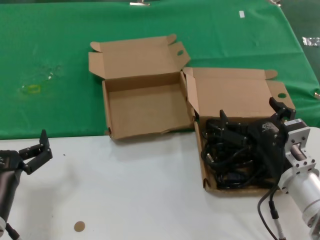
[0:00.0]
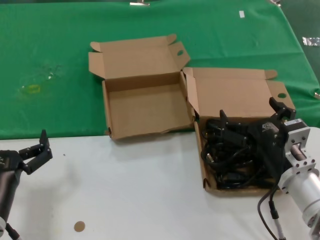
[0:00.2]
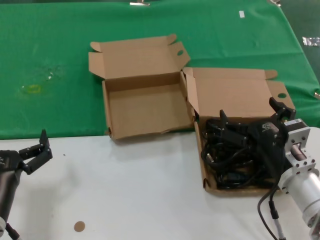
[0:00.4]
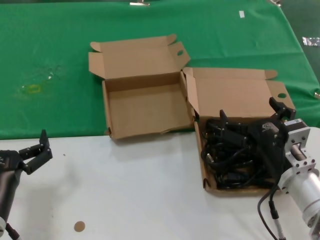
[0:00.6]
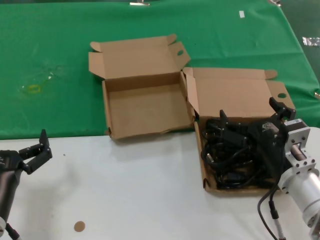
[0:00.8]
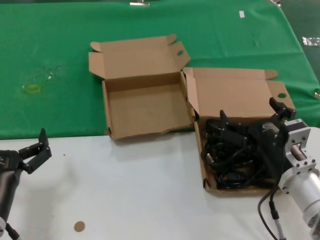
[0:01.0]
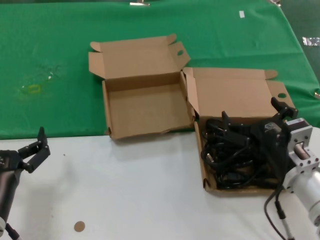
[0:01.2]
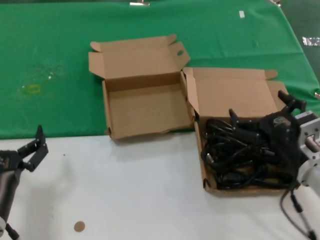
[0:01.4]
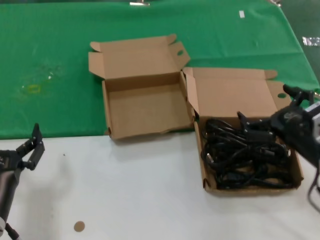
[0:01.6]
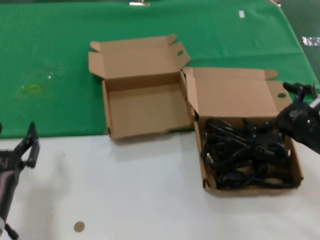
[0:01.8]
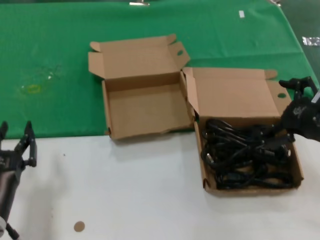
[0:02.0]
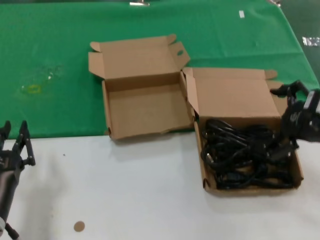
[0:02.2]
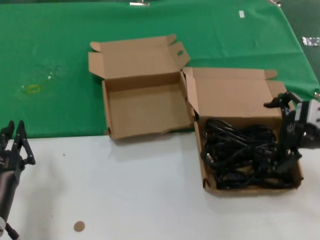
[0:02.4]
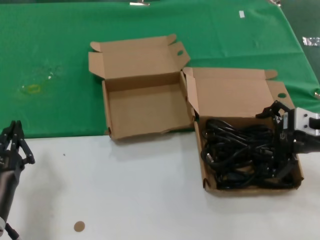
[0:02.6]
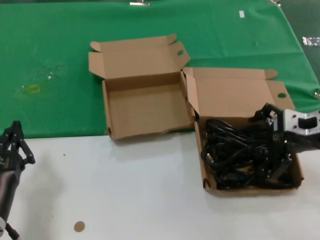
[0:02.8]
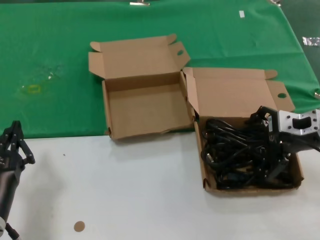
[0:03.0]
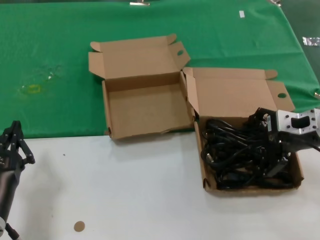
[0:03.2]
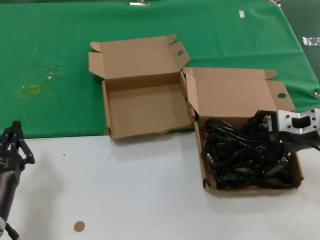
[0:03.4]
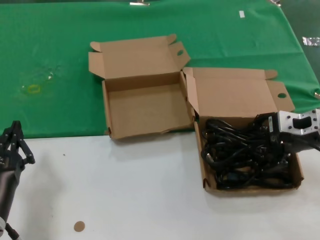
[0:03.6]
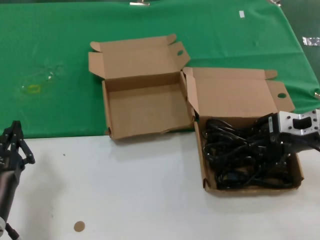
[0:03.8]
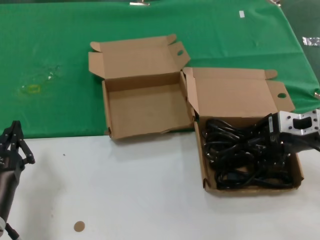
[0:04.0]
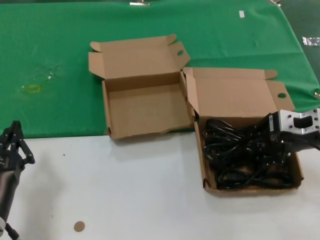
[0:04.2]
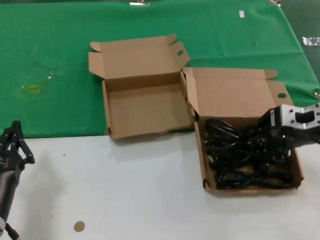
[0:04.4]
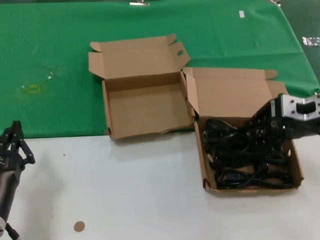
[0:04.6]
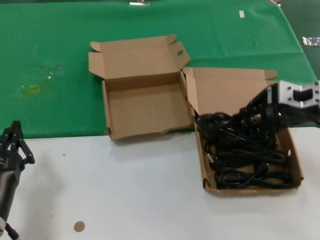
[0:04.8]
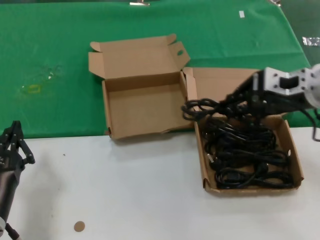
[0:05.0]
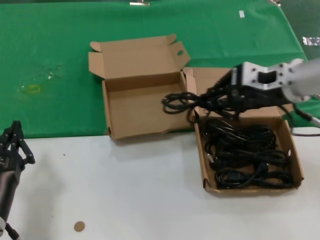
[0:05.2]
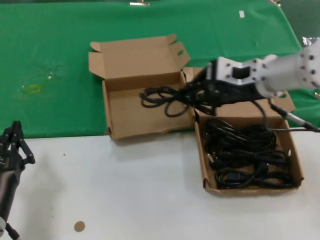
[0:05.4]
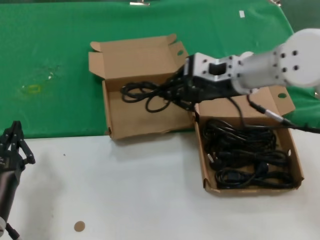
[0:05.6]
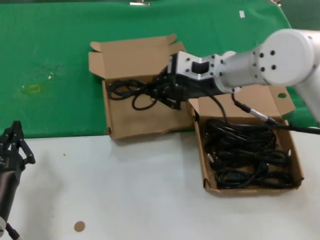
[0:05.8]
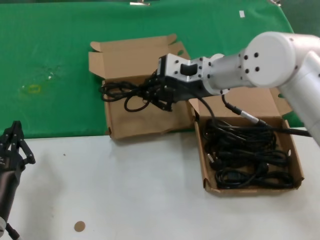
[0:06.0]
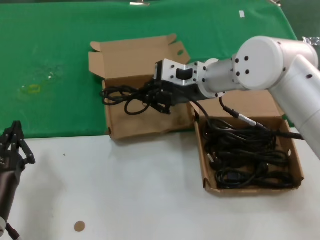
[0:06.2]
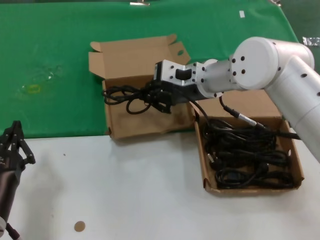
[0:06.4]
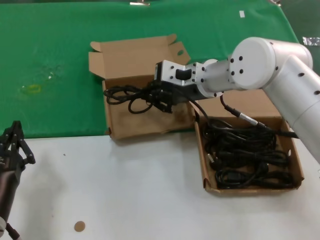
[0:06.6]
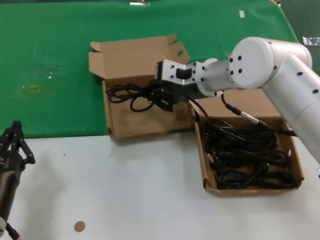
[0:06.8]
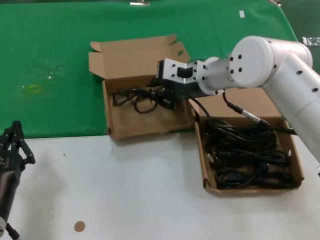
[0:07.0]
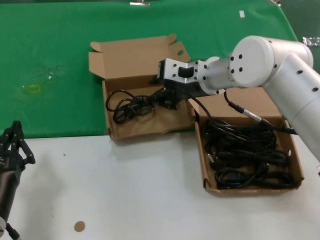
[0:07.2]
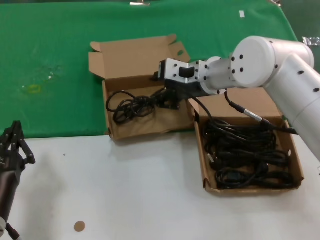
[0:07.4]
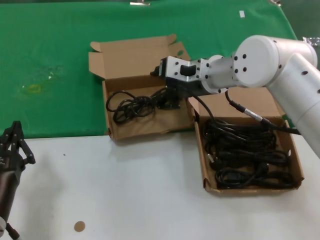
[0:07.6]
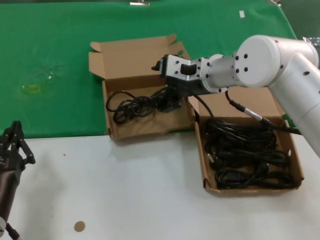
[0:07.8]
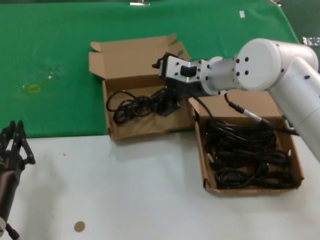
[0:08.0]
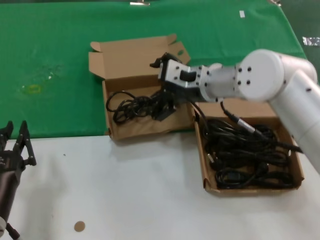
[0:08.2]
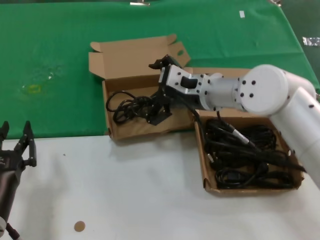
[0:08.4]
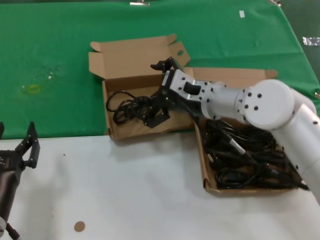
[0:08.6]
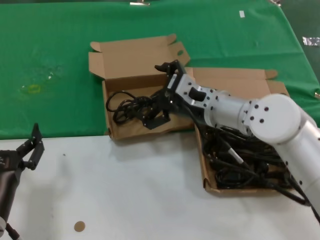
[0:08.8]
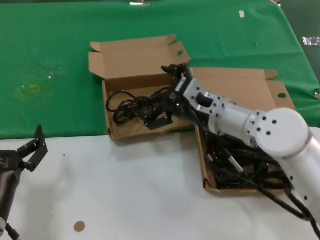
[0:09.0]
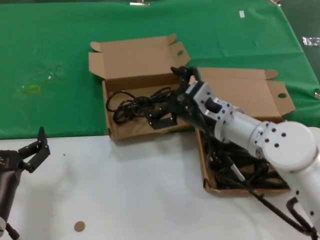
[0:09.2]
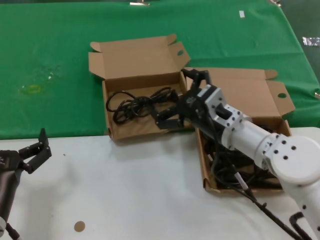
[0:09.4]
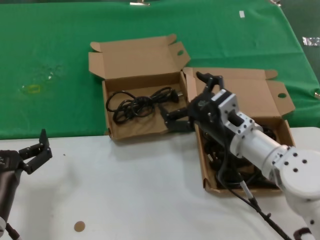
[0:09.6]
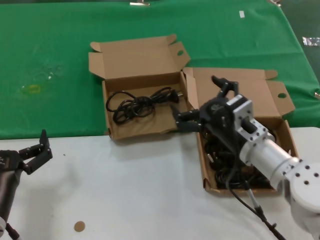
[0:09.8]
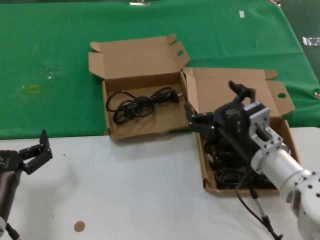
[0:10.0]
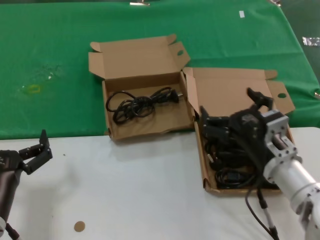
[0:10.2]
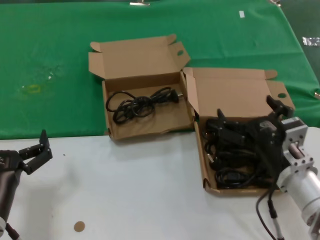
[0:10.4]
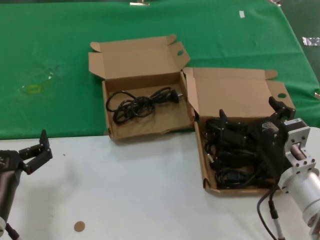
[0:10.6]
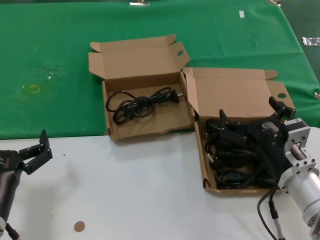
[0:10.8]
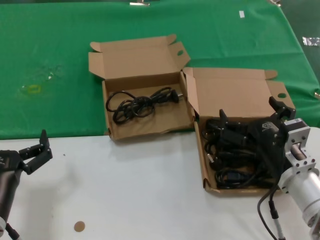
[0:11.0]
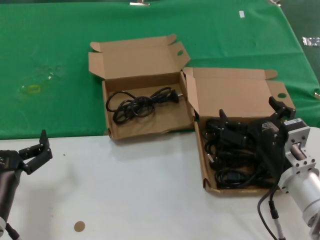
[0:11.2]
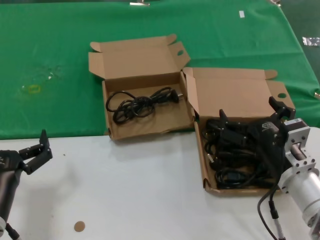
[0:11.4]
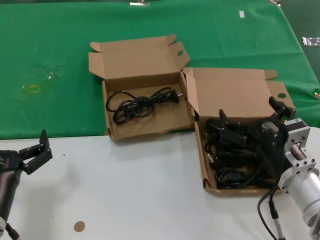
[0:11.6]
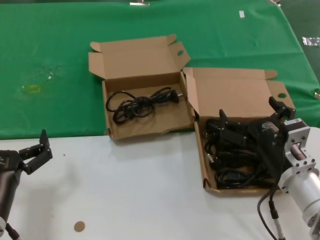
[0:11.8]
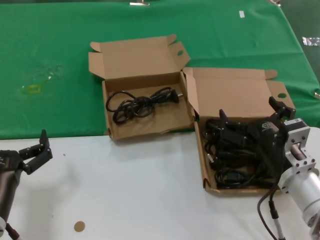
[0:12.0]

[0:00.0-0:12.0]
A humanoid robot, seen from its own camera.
Task of the whole recording: take the parts from the box containing them and put them into an empty box.
Step, 0.0 to 3.8 s: Grasp the data cable.
Step, 4.0 to 7.0 s: Place the data cable in the another box.
0.0 to 1.6 s: The right hand shifts some 5 cm to the right.
1.6 to 3.0 s: The right hand shifts some 10 cm upward and forward.
3.0 to 4.4 s: Neither hand changes place.
4.4 to 6.0 s: The right hand goes about 20 cm to the left and forward.
6.0 to 7.6 s: The hands stay close to where they were, moving slightly.
7.6 to 9.0 s: The right hand goes roughly 10 cm downward and backward.
9.0 to 10.4 s: The right hand travels backward, downward and to the right by about 15 cm.
10.4 to 12.0 s: The two hands keep their place.

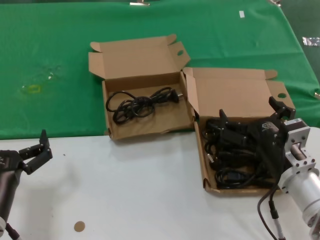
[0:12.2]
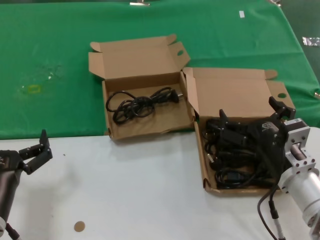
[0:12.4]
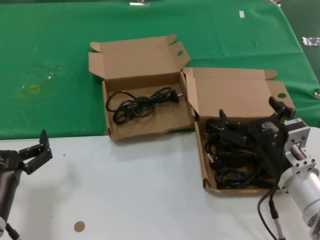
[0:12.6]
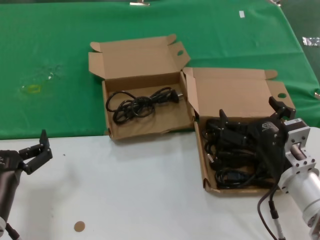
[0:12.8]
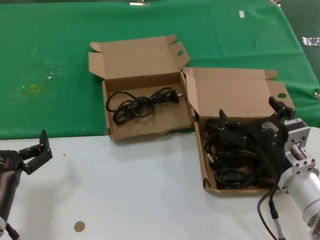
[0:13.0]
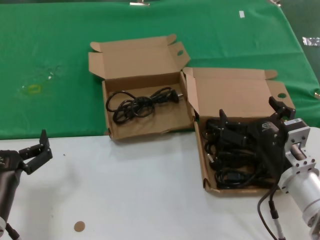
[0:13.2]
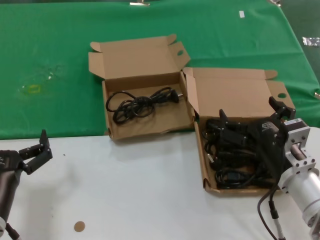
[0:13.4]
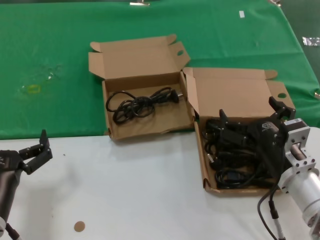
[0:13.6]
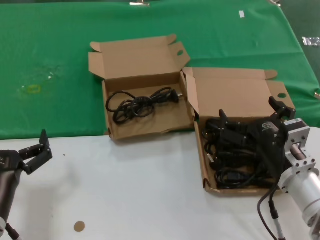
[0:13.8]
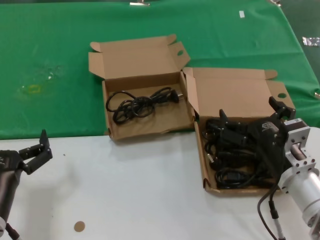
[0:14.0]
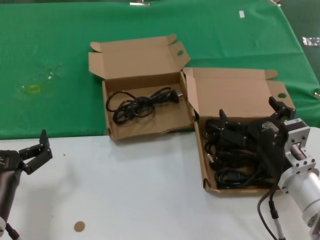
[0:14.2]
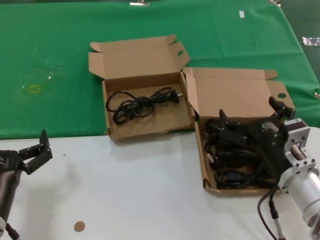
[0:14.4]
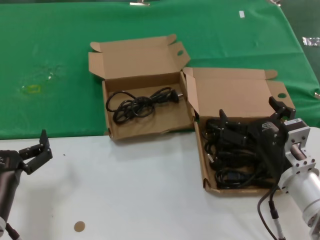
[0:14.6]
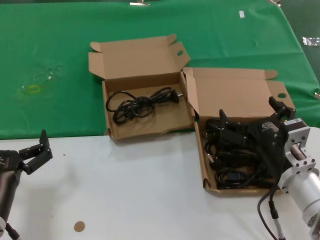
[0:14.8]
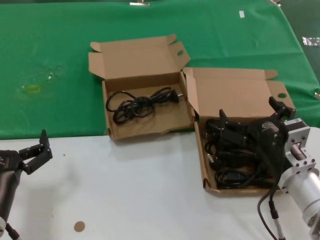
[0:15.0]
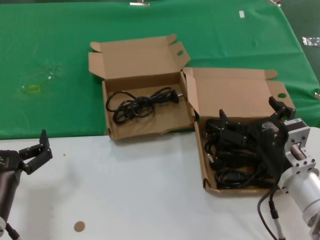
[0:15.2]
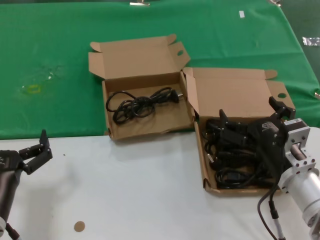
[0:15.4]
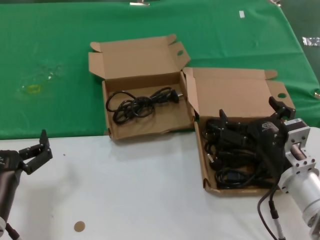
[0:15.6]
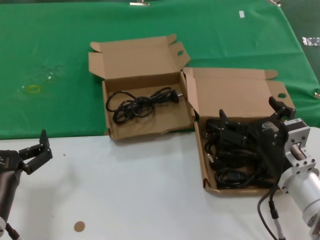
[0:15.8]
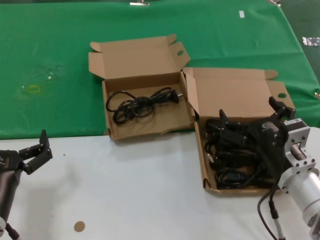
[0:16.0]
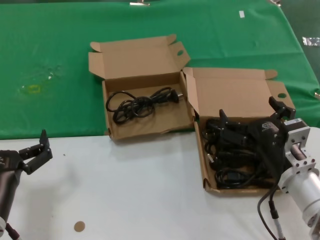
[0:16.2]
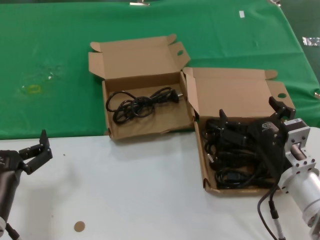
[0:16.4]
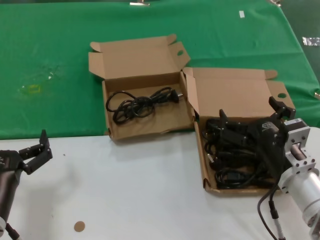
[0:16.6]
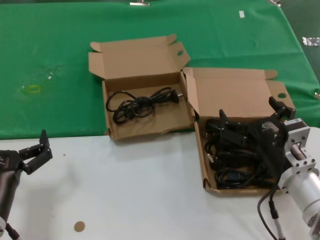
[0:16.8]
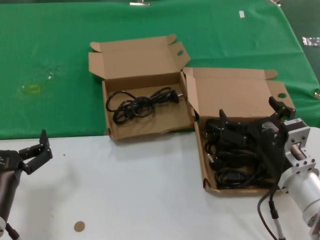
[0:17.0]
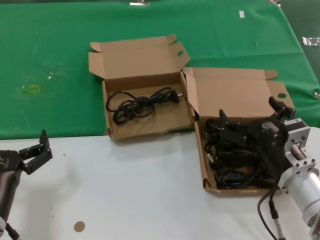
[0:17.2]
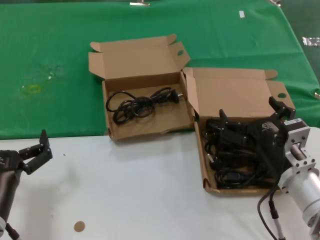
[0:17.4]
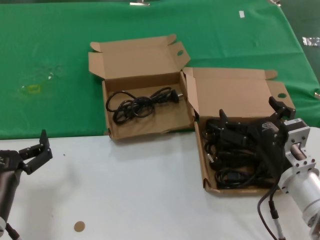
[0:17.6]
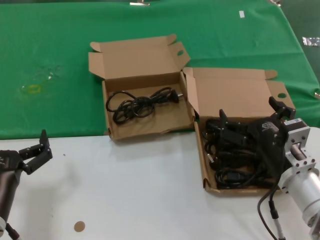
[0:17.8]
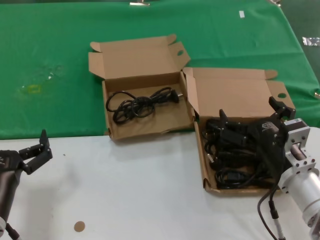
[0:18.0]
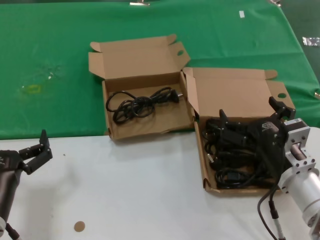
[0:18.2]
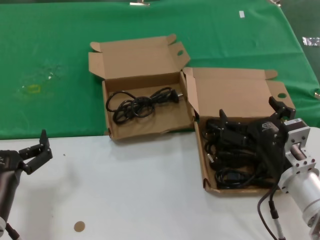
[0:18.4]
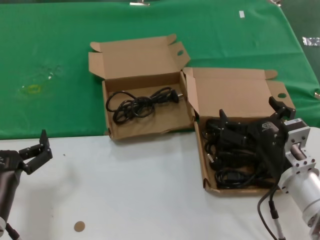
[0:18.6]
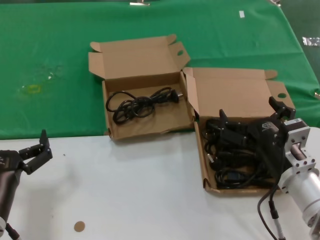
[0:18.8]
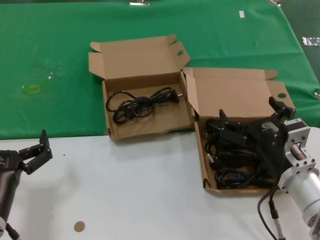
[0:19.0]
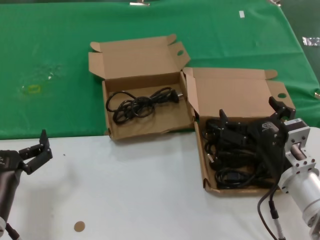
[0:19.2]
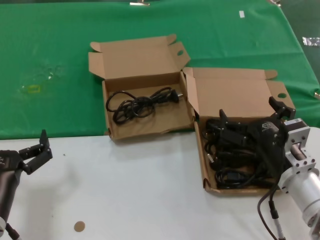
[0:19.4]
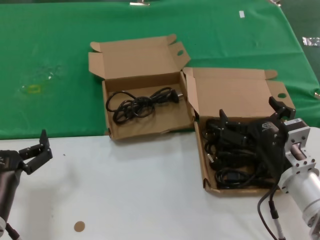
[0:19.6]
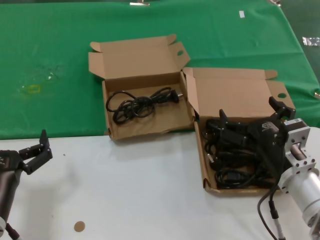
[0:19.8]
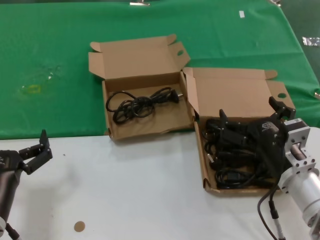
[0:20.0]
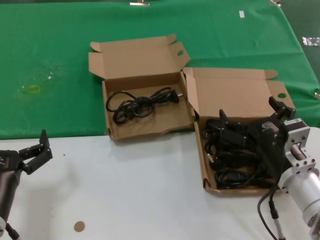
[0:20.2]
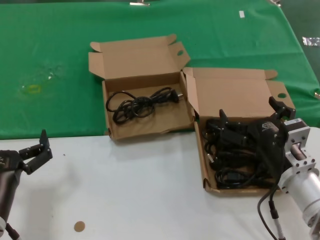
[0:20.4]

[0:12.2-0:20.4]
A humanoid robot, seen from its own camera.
Task of the whole recording: take the parts from the box containing them and put them into an empty box.
12.2 to 20.4 s: Both hands stay put.

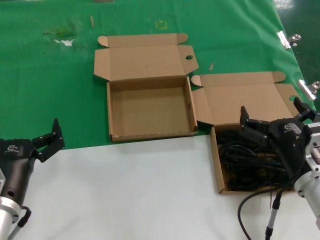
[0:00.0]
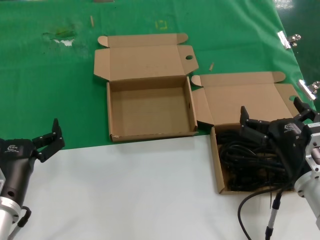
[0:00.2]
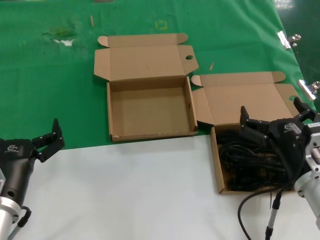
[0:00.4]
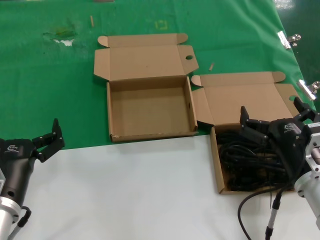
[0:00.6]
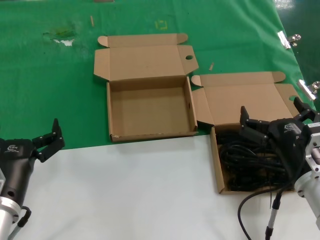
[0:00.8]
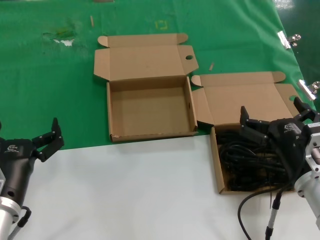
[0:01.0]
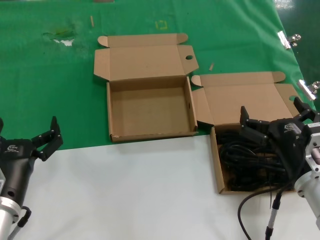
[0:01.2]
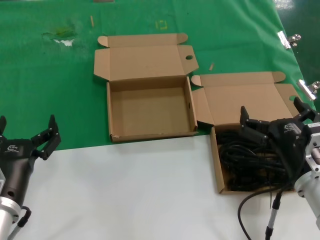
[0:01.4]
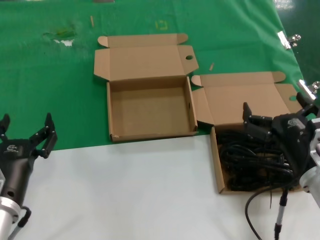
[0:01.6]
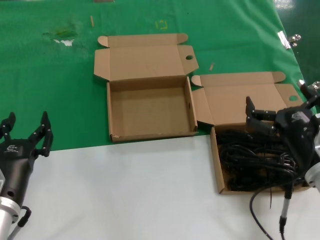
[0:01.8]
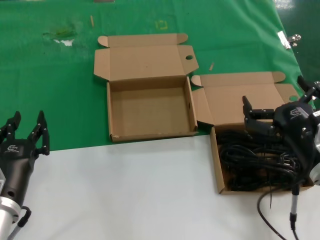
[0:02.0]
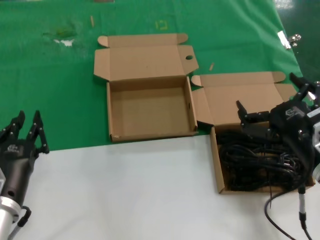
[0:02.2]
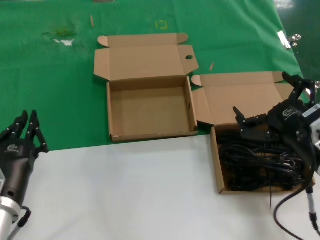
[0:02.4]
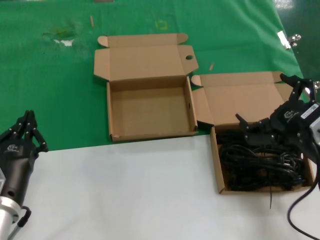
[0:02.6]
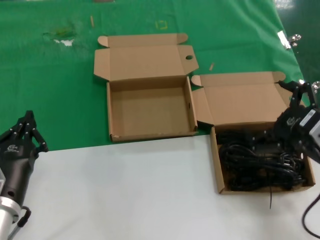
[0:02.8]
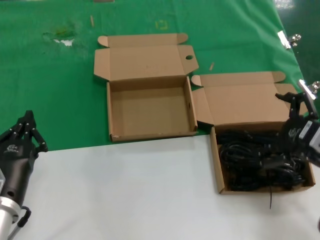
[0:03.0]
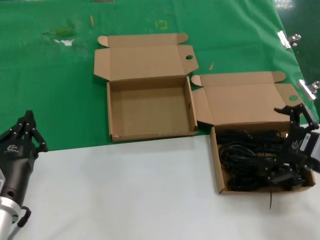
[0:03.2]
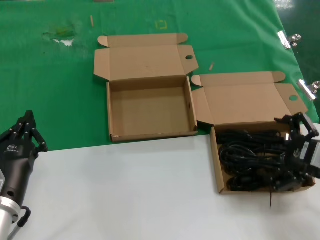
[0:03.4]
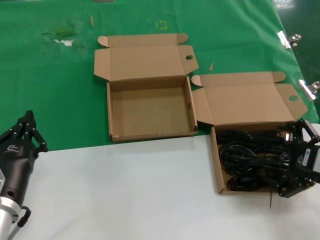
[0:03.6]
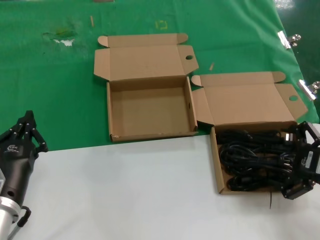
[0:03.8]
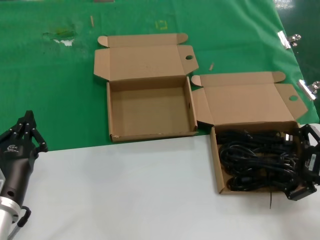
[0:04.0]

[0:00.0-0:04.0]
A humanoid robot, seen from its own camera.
Task of the whole recording: take the parts from the box containing them and put them into an empty box.
0.0 to 1.4 s: Neither hand changes place.
1.4 to 2.6 s: The right hand goes roughly 5 cm upward.
2.6 to 4.0 s: The right hand is displaced to the right by about 5 cm.
